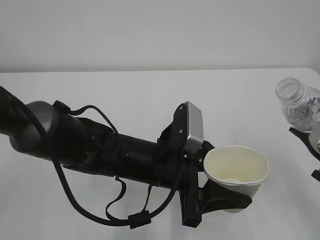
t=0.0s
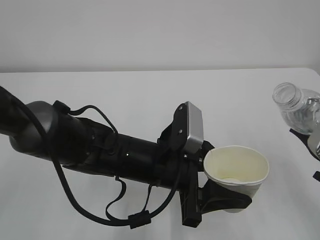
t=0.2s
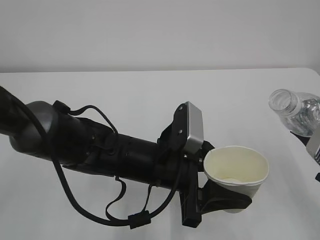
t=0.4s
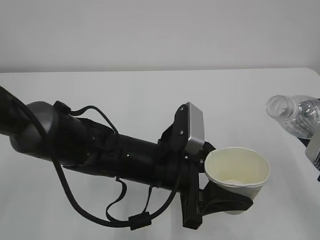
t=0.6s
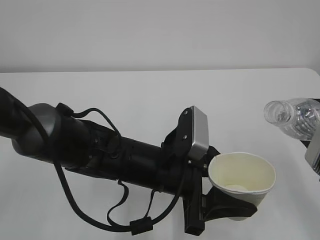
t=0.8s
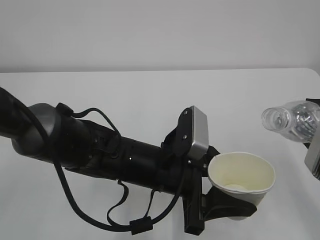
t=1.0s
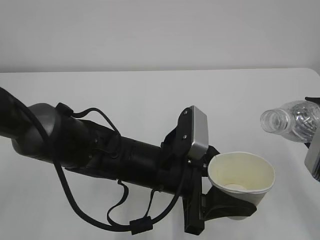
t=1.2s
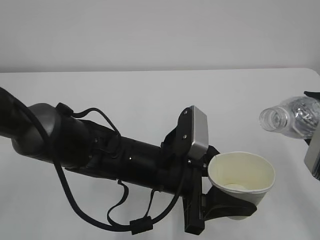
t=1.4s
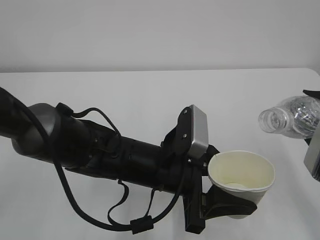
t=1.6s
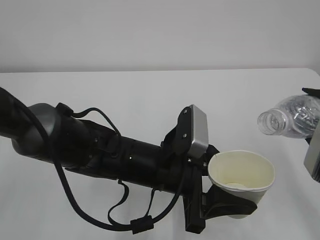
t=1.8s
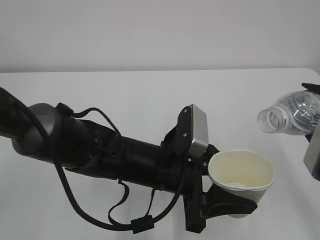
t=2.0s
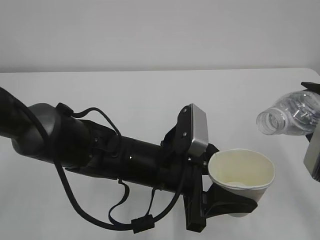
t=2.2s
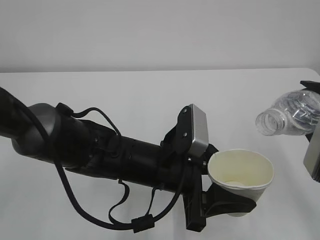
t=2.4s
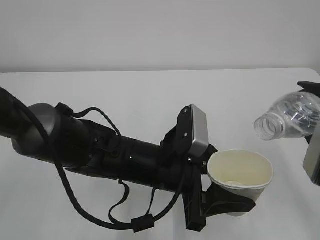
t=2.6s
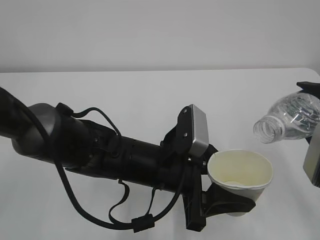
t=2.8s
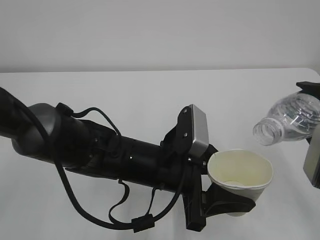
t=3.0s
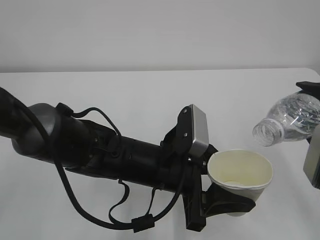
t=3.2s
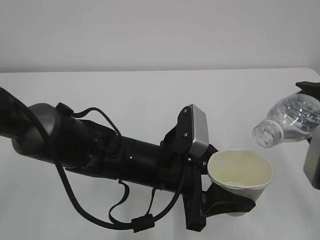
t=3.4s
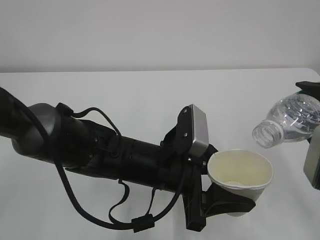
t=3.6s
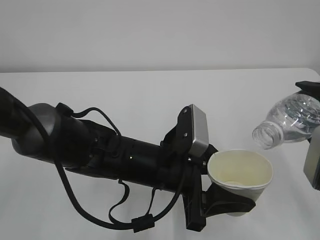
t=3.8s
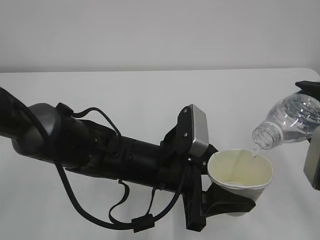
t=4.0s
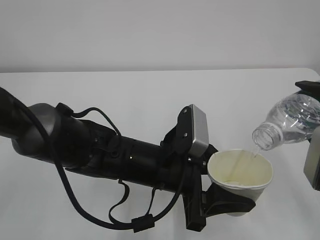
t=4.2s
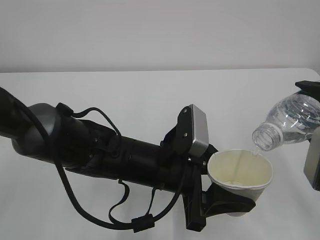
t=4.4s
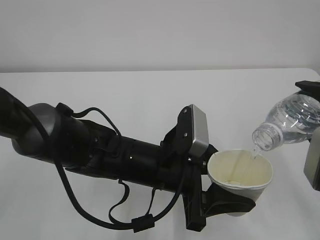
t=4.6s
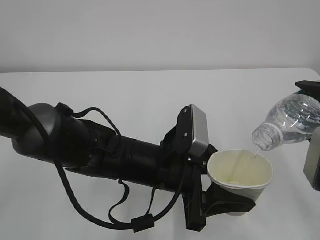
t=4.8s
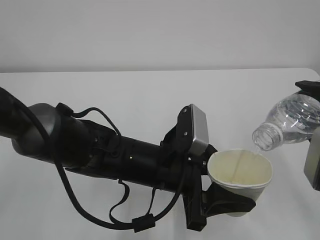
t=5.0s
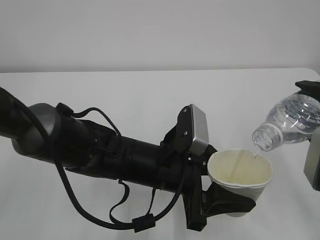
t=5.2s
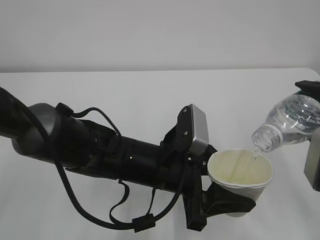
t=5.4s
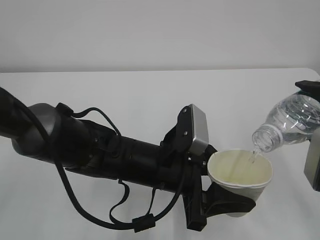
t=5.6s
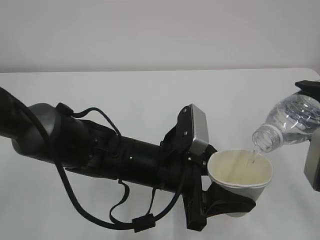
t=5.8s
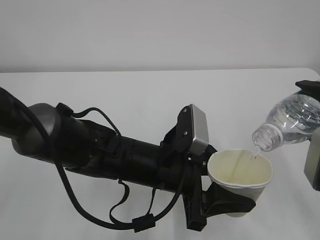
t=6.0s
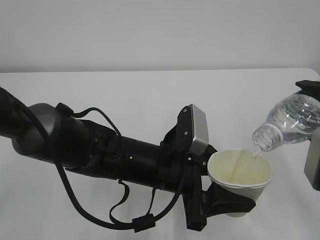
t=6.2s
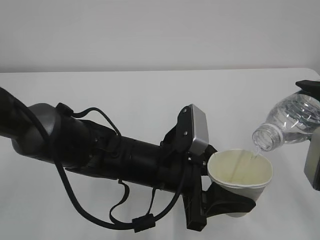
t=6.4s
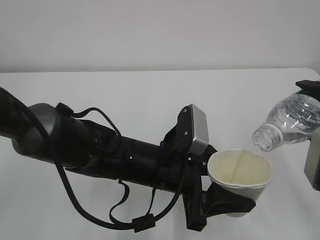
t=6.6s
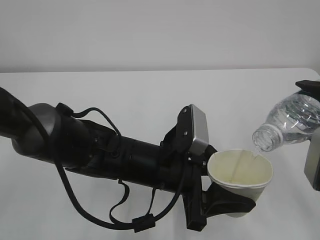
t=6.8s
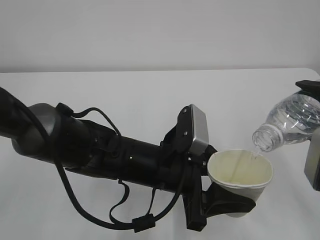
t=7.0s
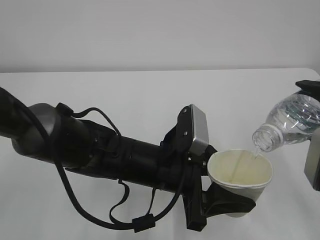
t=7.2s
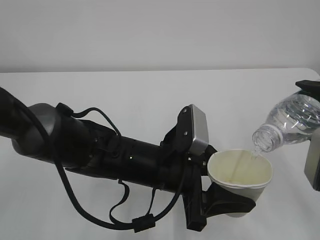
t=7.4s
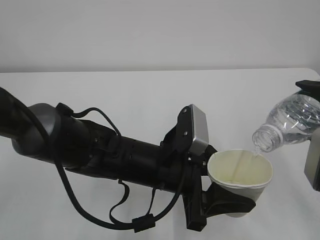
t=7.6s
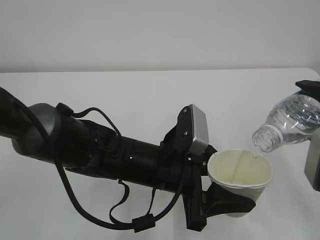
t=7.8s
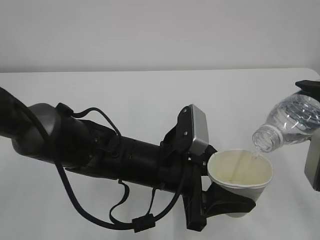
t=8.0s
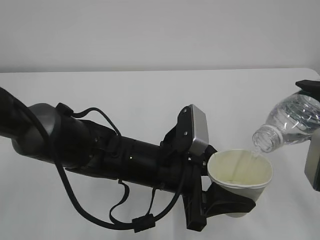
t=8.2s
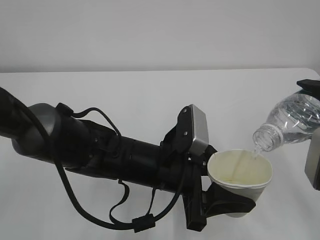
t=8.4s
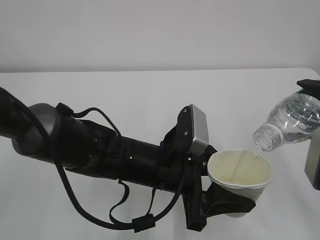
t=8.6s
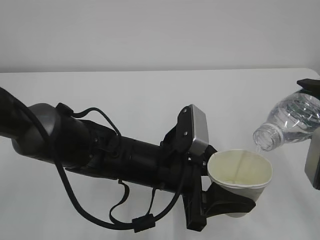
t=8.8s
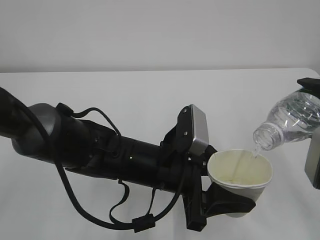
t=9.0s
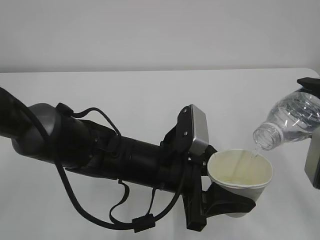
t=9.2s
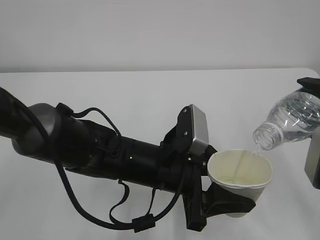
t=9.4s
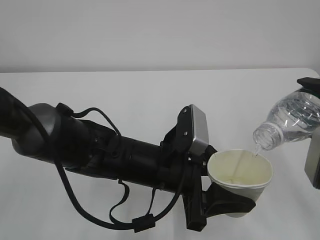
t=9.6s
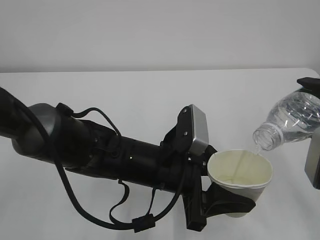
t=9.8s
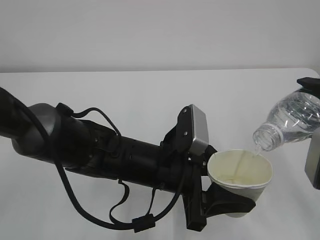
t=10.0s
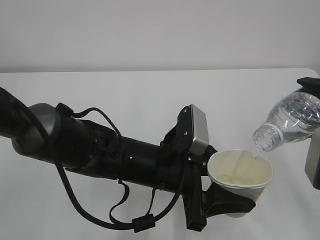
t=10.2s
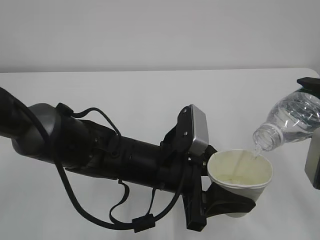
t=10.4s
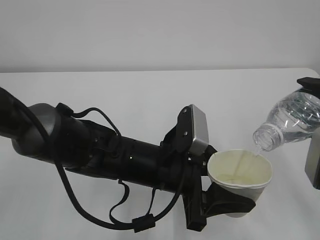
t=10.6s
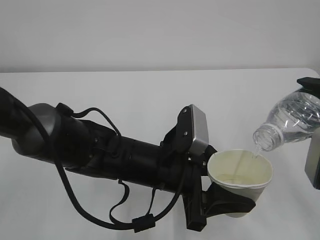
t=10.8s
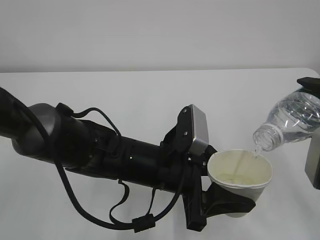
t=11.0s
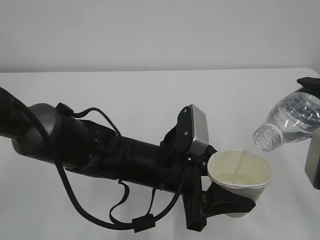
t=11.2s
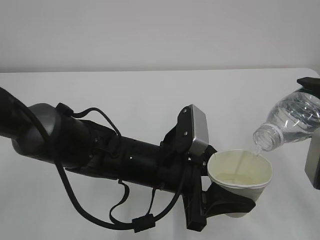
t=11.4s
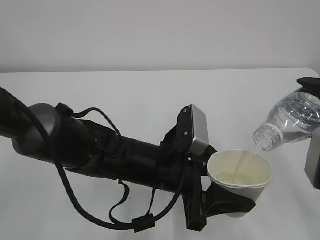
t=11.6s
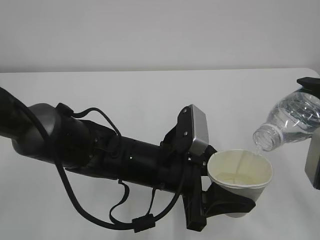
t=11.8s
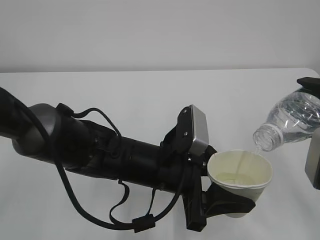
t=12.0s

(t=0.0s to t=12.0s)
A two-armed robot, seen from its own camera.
t=1.6s - t=3.0s: The grippers move only a little.
t=3.0s - t=4.4s: Neither gripper changes place.
t=4.4s - t=12.0s: The two grippers keep their place.

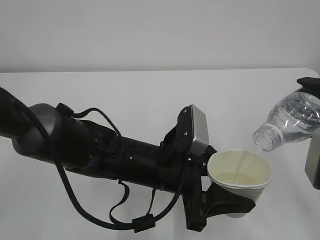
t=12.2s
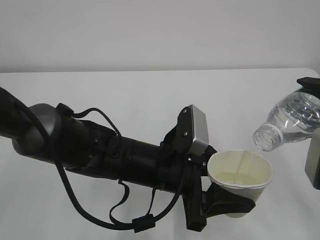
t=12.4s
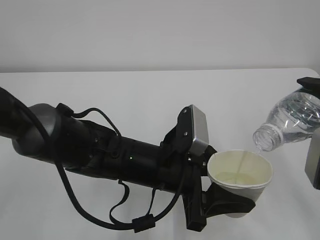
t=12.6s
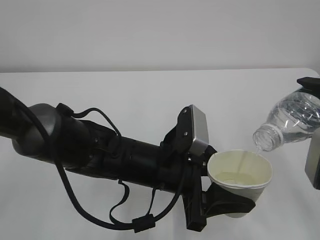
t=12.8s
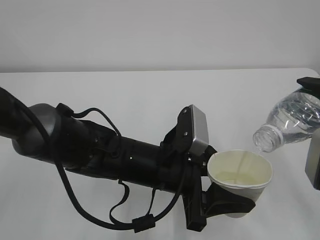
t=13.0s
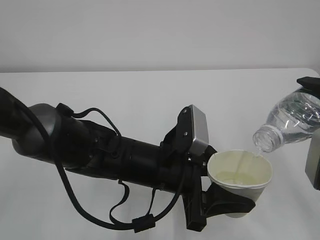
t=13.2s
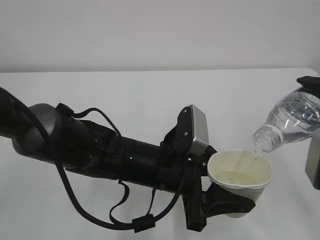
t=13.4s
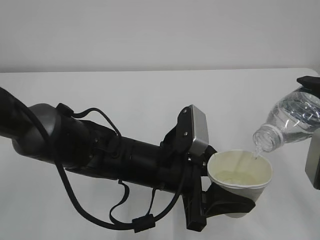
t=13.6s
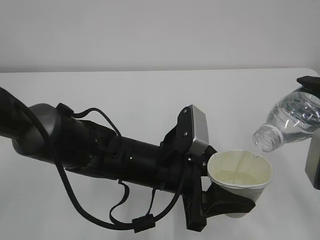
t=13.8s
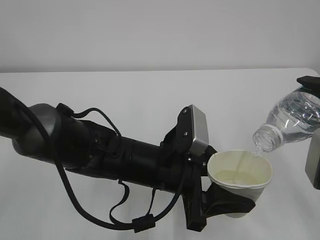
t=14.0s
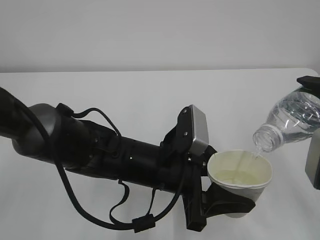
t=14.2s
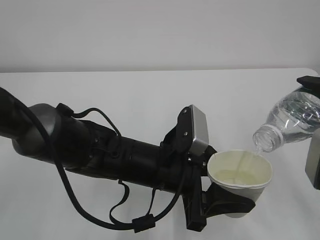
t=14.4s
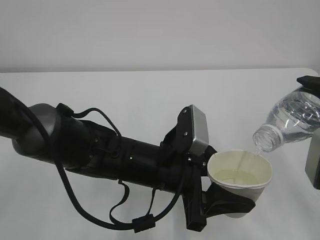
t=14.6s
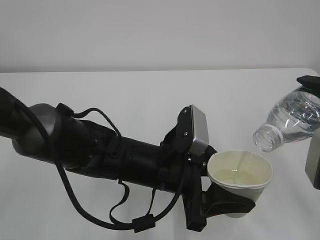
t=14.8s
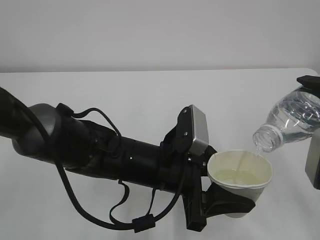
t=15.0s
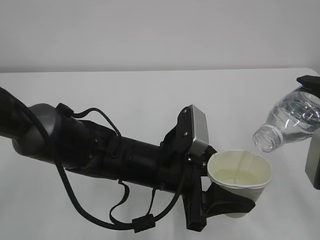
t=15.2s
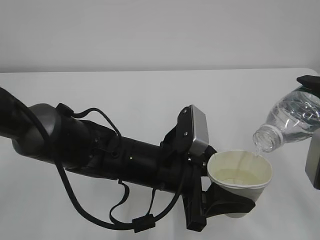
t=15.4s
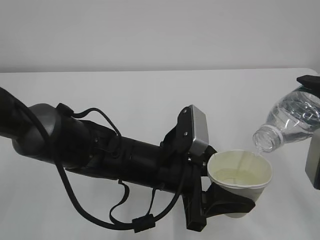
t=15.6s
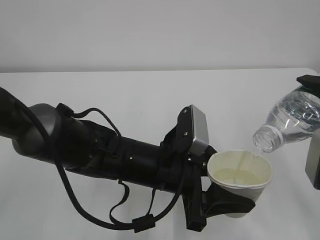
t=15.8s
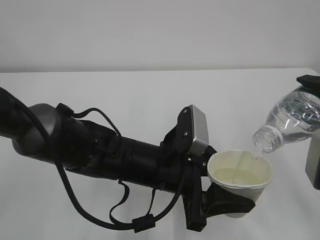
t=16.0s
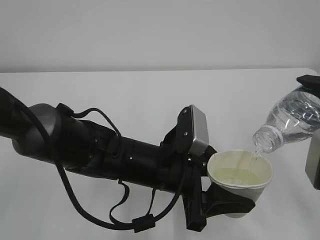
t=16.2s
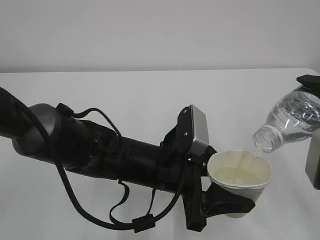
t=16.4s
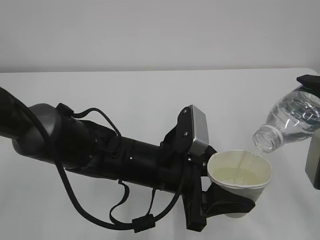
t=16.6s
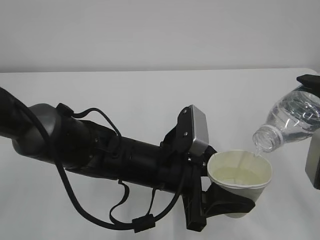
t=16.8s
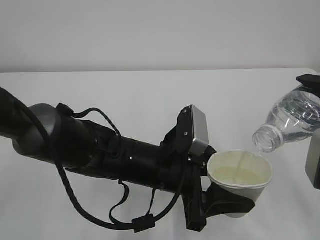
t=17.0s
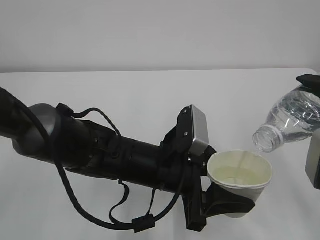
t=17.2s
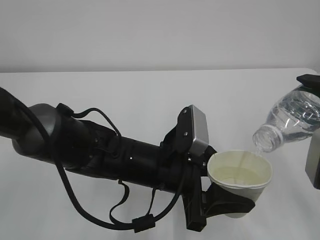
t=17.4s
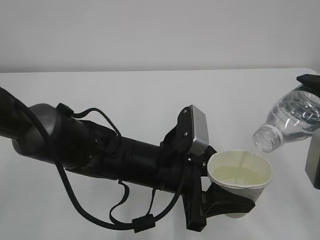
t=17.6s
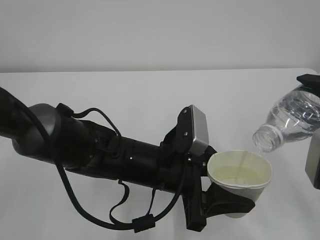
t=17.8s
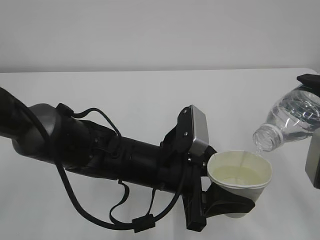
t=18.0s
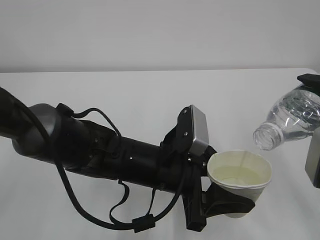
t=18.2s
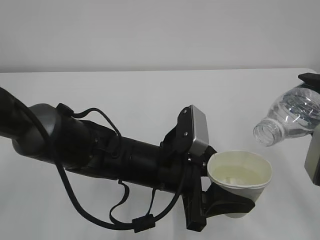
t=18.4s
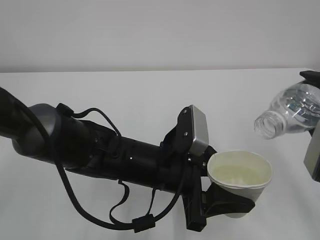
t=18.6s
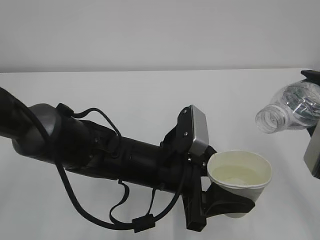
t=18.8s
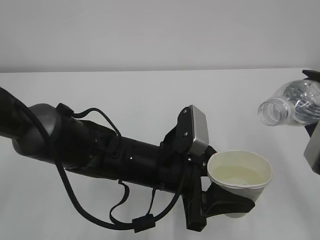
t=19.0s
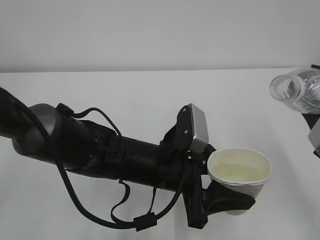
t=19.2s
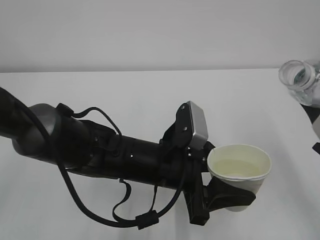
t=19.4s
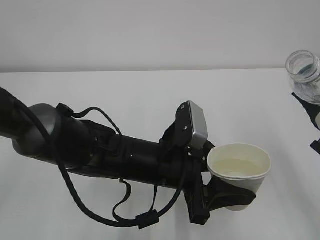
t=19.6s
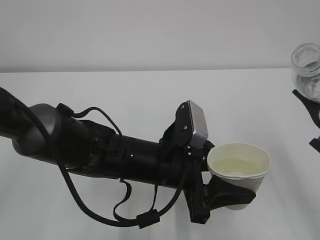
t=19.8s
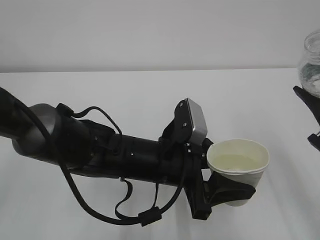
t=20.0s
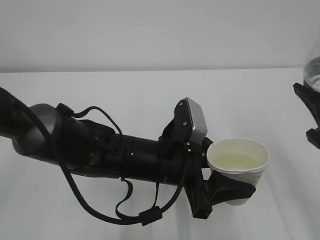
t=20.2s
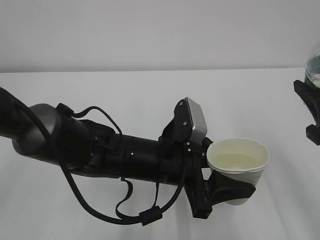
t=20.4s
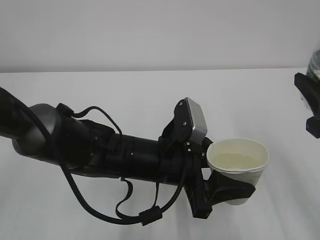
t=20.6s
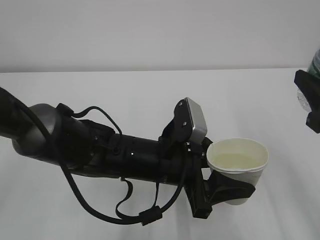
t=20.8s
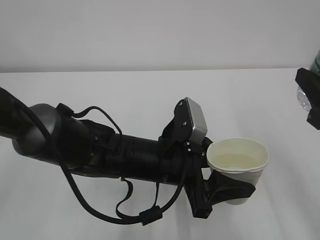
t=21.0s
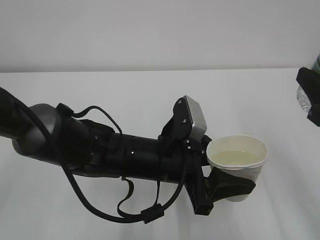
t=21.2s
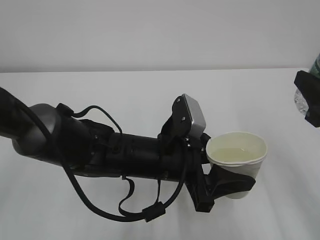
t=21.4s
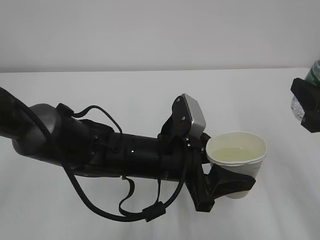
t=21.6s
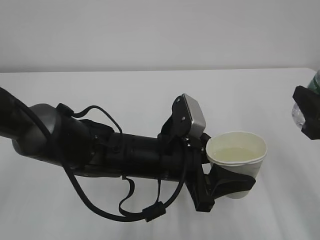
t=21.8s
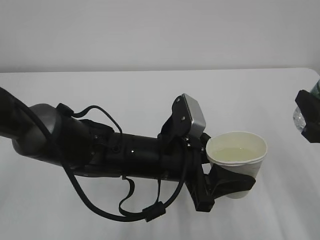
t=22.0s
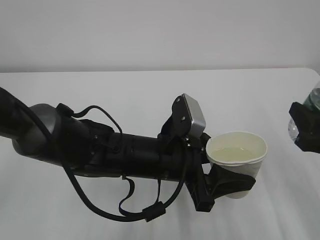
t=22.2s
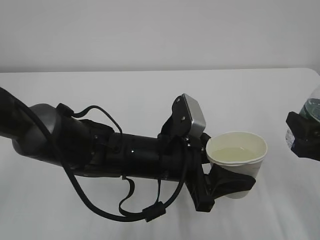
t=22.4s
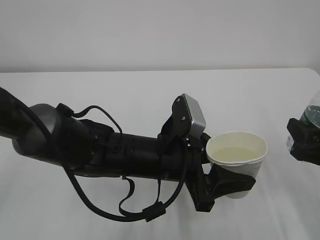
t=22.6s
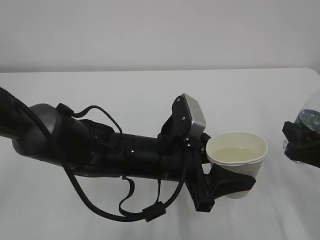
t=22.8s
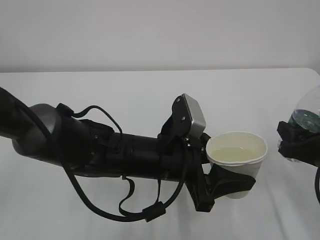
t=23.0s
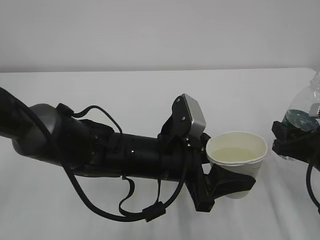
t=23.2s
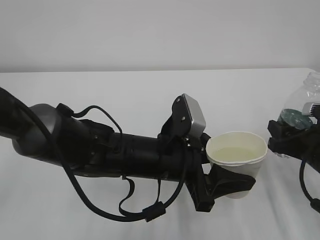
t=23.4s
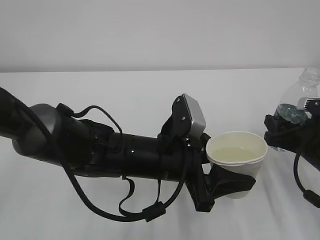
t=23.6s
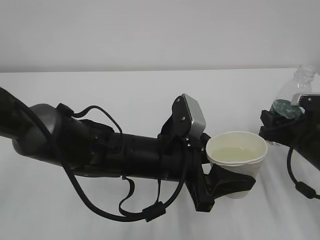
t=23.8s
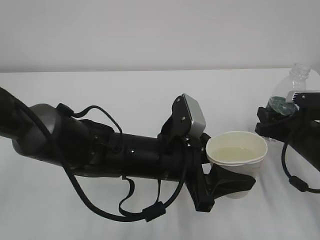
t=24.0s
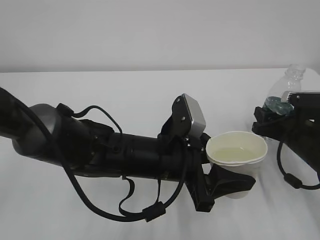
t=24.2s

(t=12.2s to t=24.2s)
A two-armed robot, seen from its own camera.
t=12.2s - t=18.2s: Both grippers stay put.
t=21.2s - t=22.6s: The right gripper moves downward, some 10 cm.
t=22.6s - t=24.2s: The right gripper goes approximately 15 cm forward and downward.
